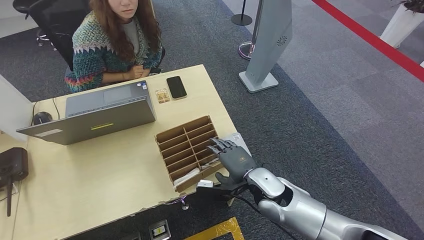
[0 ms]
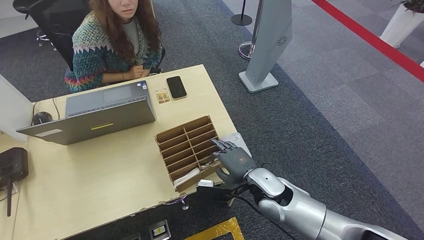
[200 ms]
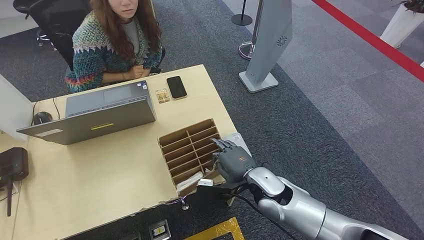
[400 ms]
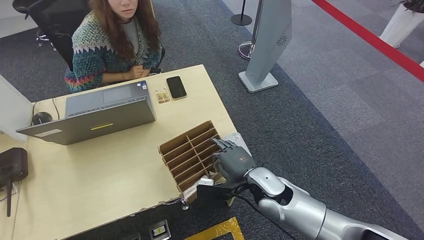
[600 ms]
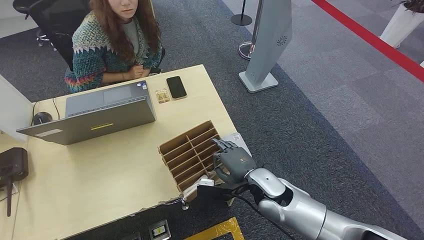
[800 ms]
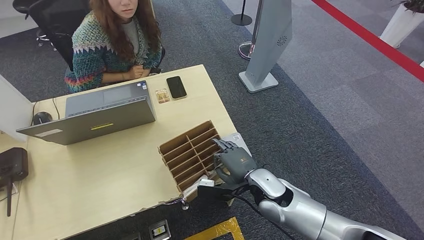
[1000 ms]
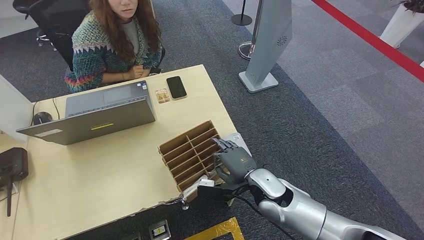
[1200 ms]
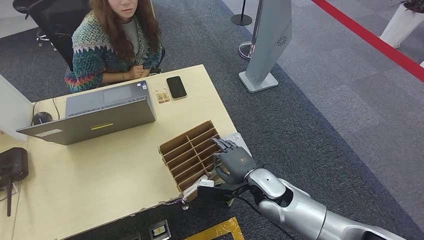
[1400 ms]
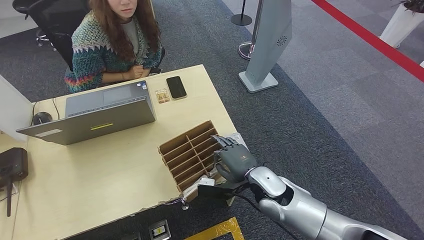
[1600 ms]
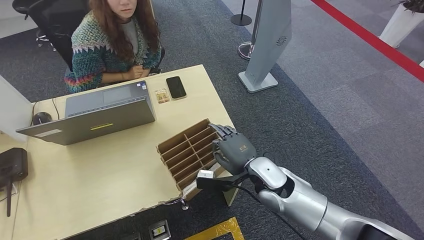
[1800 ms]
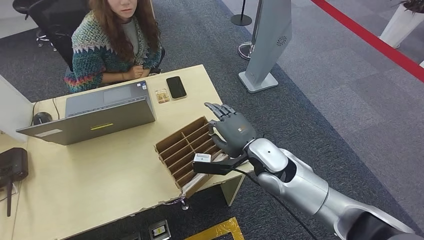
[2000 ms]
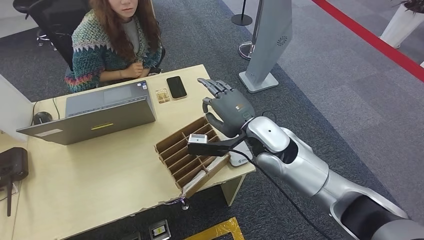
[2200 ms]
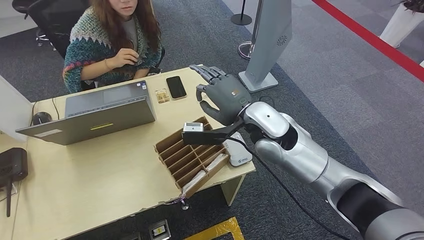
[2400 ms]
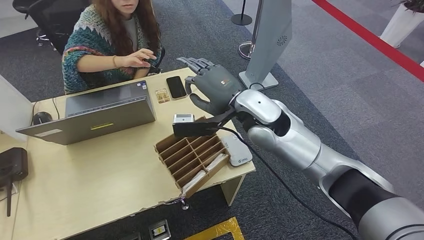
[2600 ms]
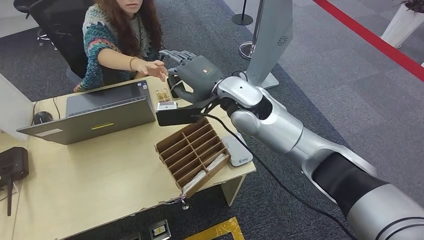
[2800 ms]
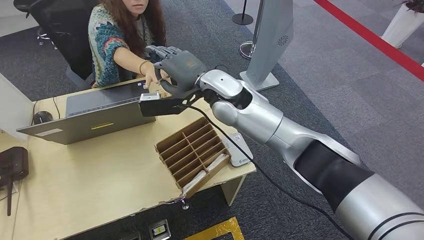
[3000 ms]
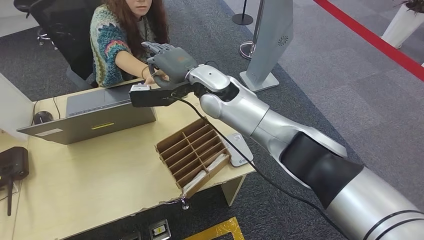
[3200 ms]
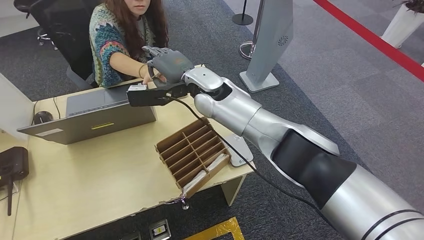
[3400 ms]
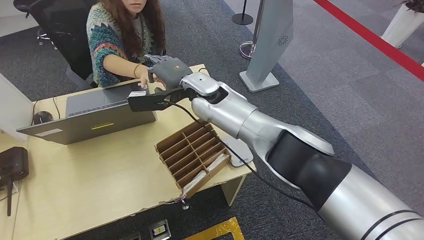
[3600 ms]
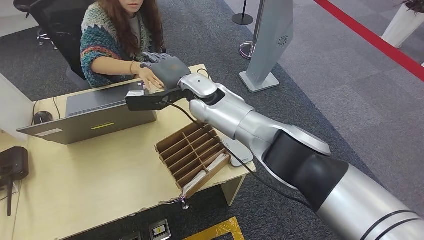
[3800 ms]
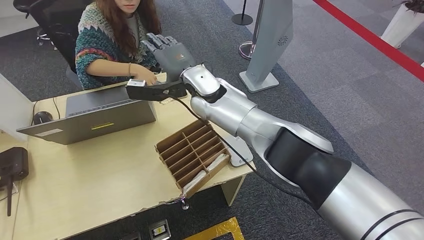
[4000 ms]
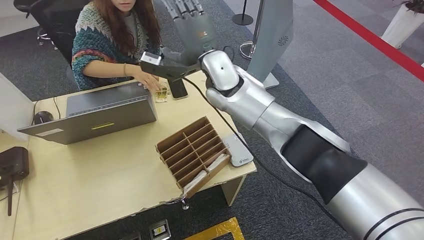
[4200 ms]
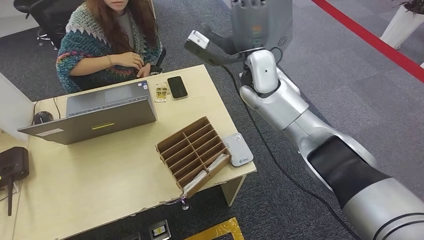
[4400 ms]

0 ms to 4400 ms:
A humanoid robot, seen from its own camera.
Step, 400 ms to 4400 ms: Hand the room key to the person.
0 ms to 1400 ms: Both hands stay put.
